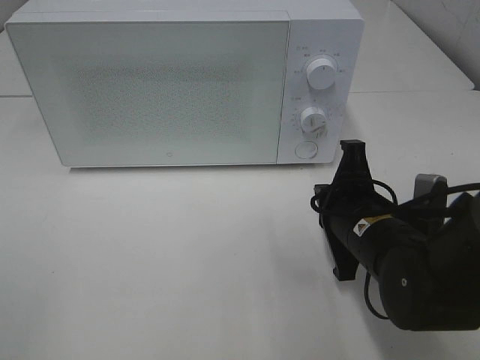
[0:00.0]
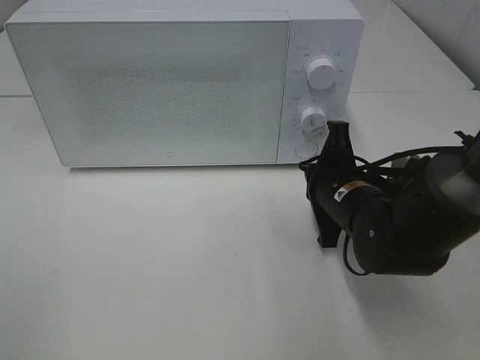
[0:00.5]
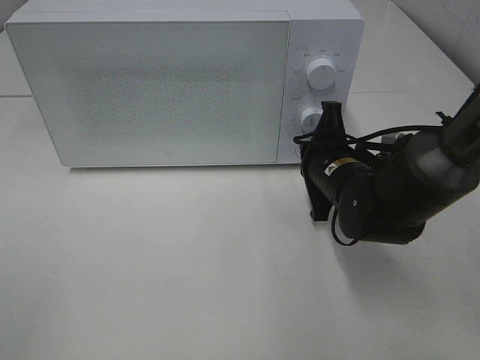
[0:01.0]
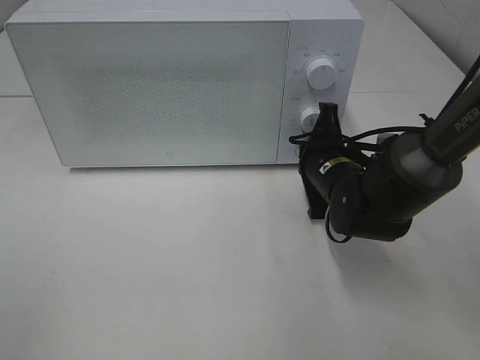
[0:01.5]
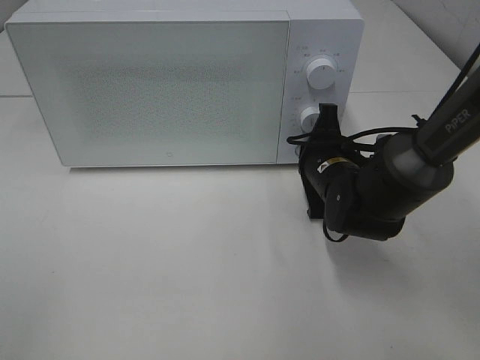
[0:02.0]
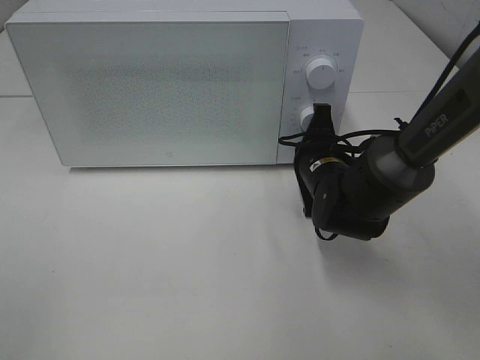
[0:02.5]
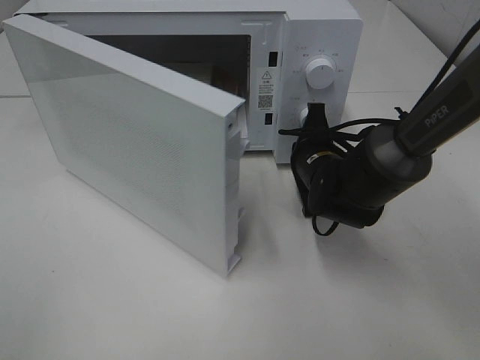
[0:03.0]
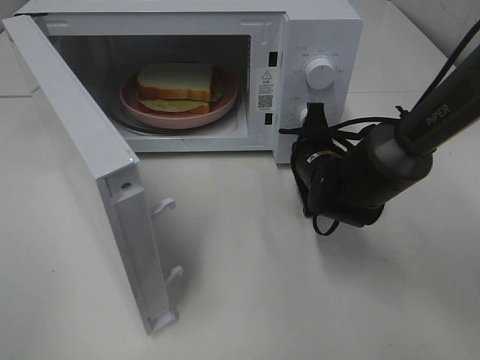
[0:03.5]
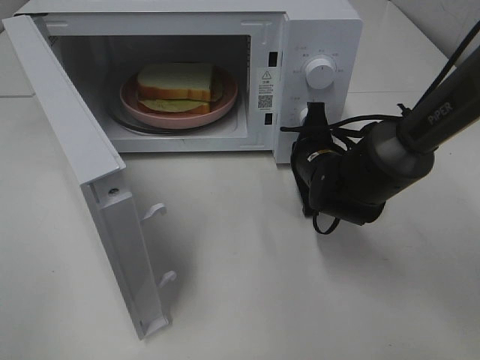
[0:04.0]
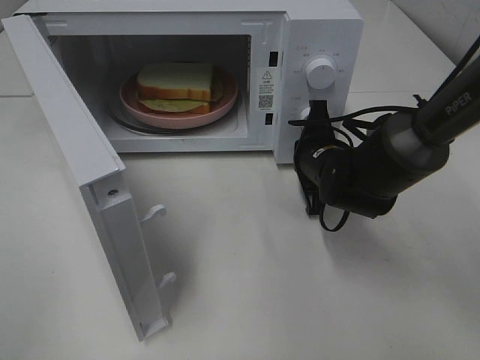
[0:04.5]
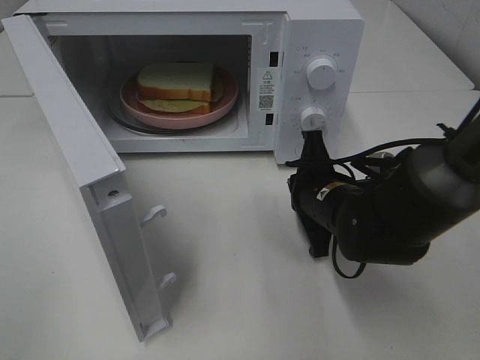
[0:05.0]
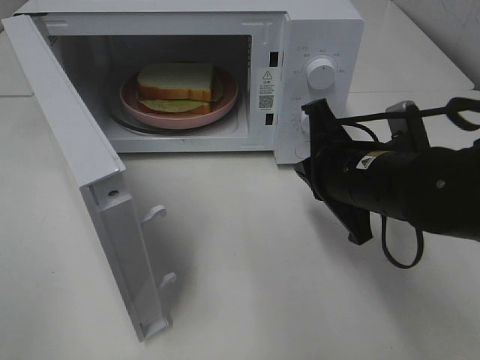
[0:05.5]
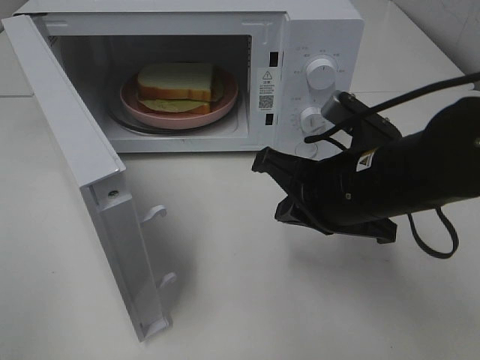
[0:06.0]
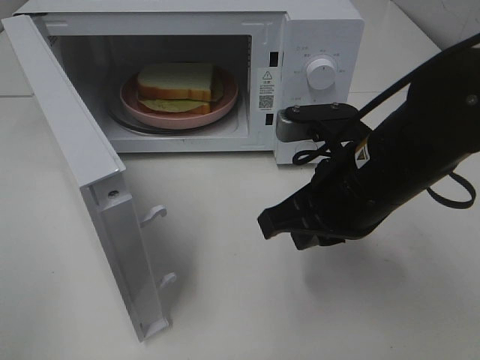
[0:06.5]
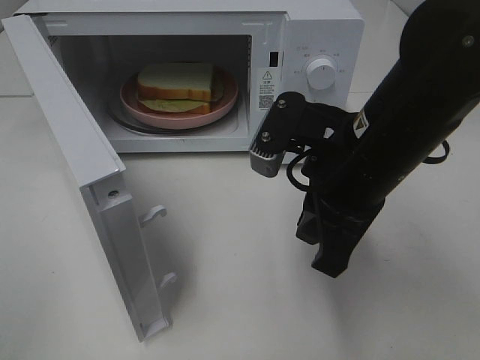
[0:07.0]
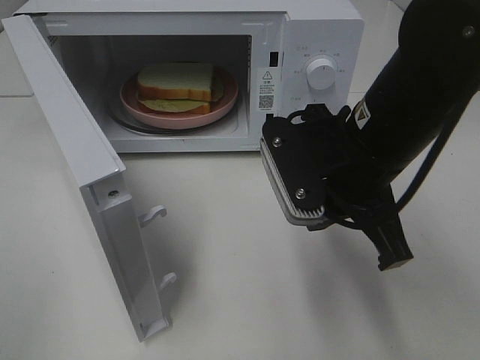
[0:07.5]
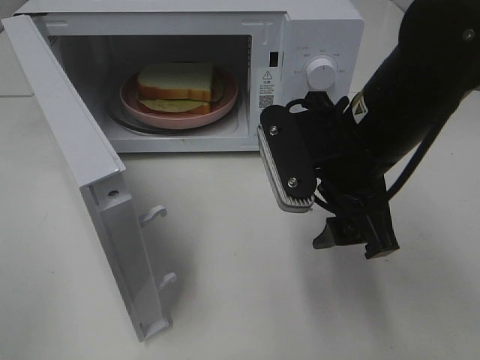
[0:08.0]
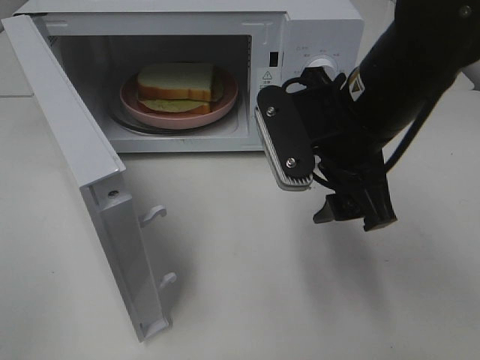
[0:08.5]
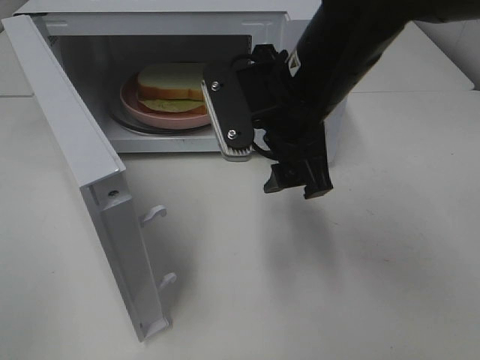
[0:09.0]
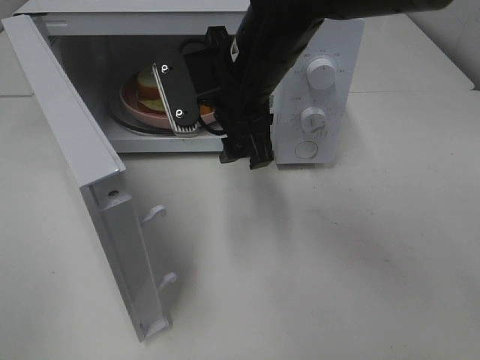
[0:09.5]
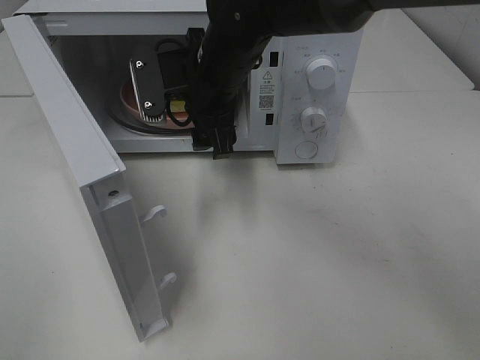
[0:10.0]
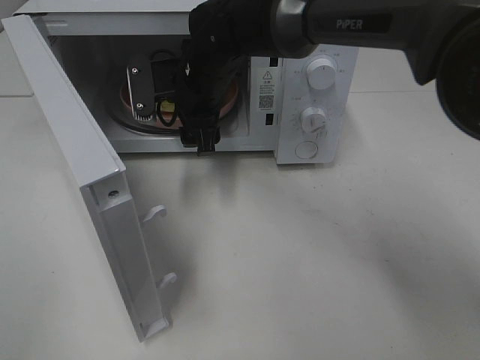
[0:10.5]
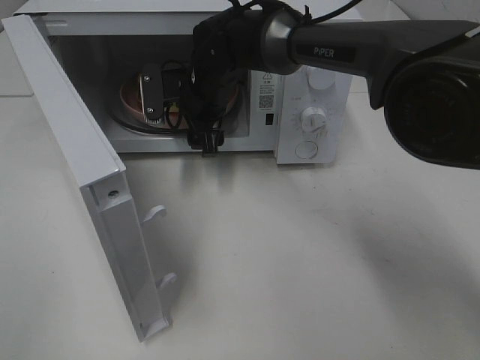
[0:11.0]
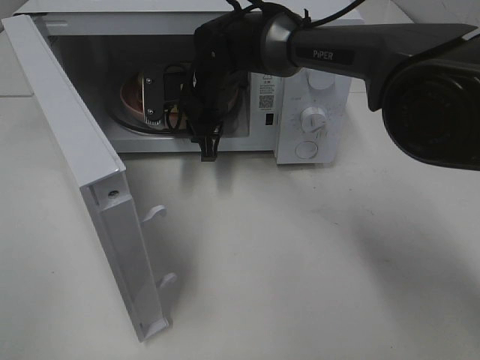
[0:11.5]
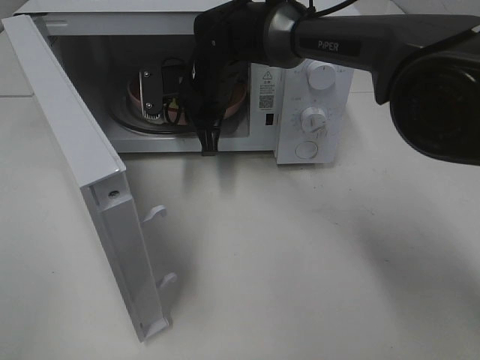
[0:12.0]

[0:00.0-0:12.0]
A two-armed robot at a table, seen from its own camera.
Task of the whole recording: Heat Sandwich.
Step, 0:00.0 to 0:04.5: Right hand: press the switch.
Step, 0:05.0 to 0:11.5: Right hand: grab the plate with the sandwich.
0:00.0 to 0:02.0: The right gripper heads forward, covering about 10 cm.
0:04.0 to 0:06.0: The right gripper goes approximately 15 cm backward and upward.
0:06.0 to 0:08.0: The right gripper opens its fingers.
0:08.0 to 0:10.0: The right gripper moves forward and to the left, some 20 cm.
0:10.0 to 0:12.0: The right gripper shifts about 10 cm forward and downward, and closes.

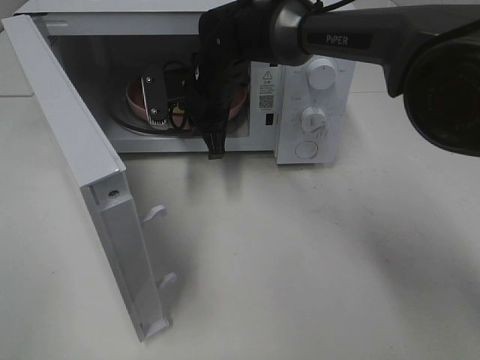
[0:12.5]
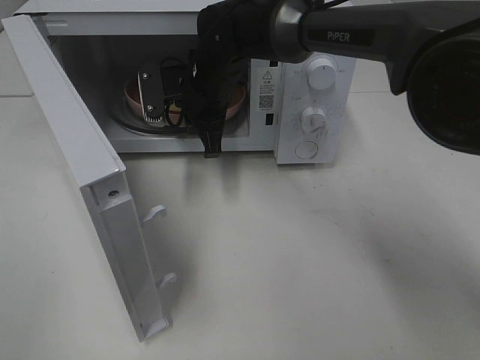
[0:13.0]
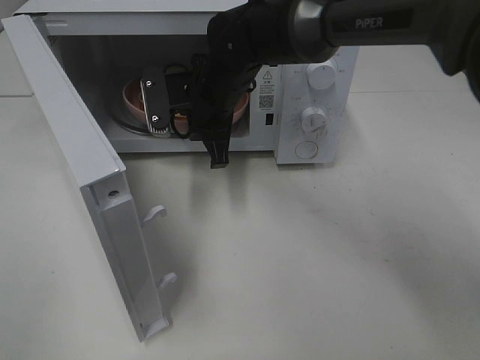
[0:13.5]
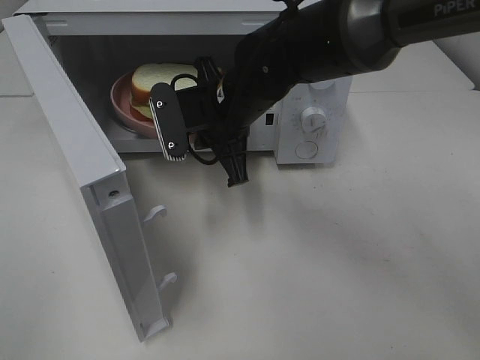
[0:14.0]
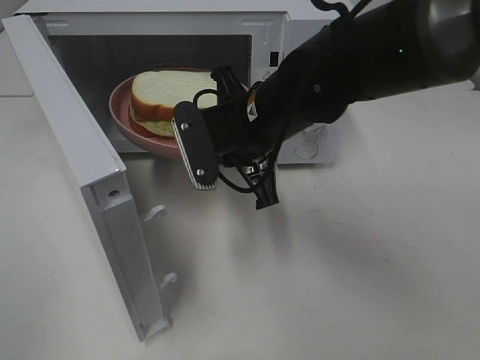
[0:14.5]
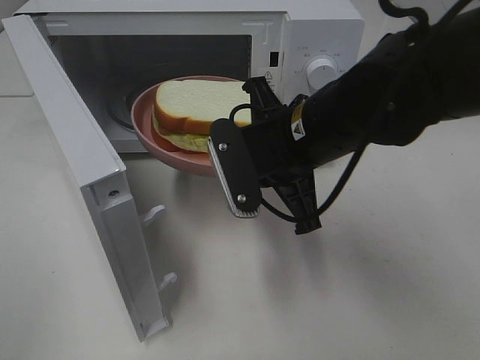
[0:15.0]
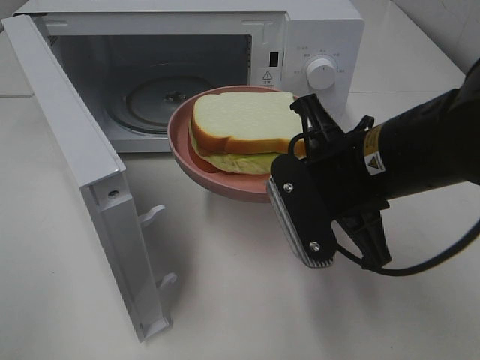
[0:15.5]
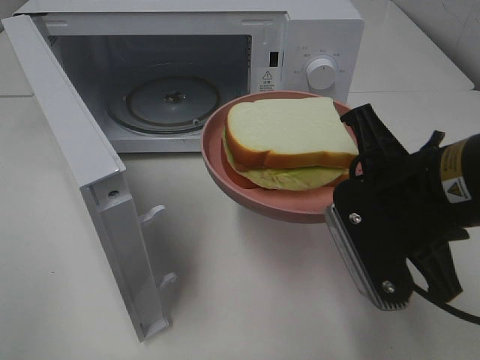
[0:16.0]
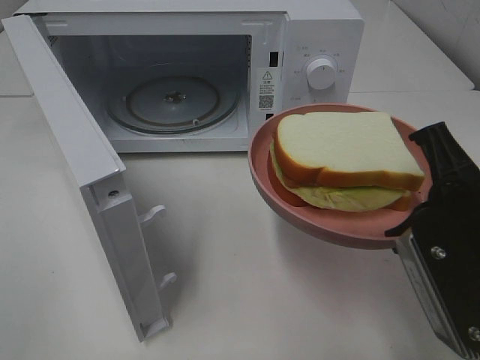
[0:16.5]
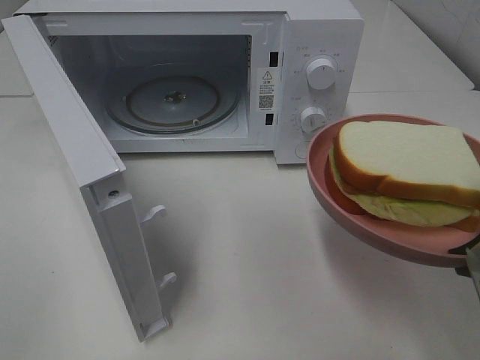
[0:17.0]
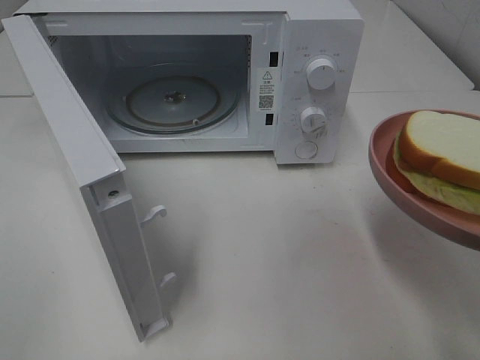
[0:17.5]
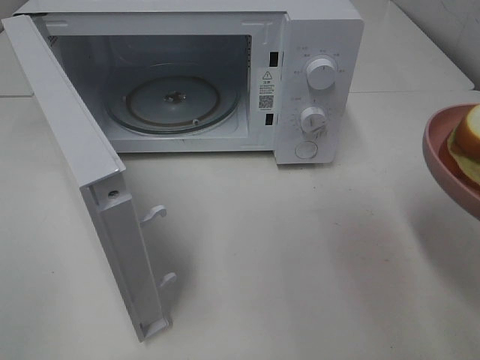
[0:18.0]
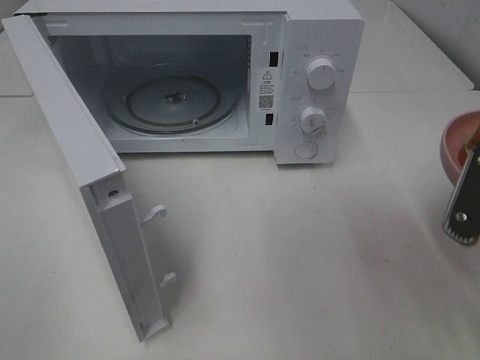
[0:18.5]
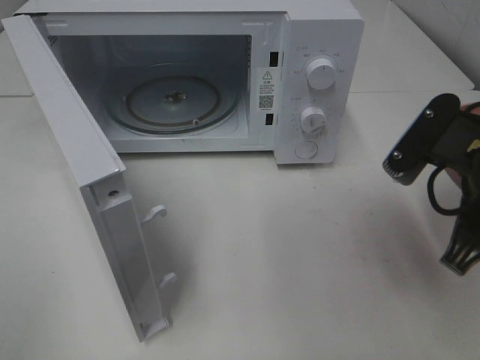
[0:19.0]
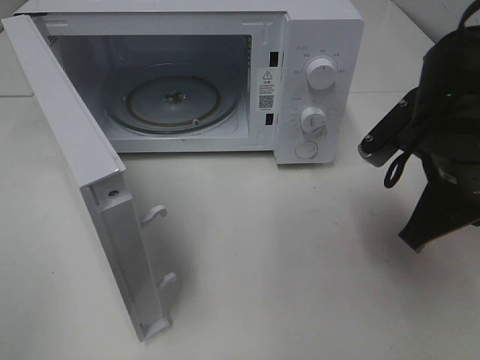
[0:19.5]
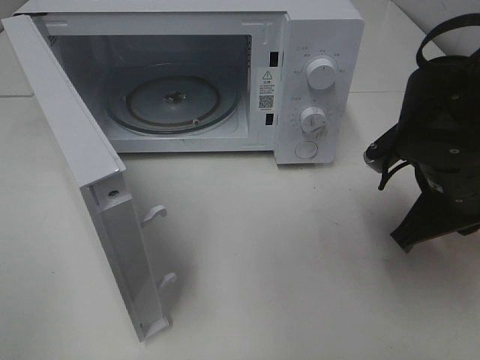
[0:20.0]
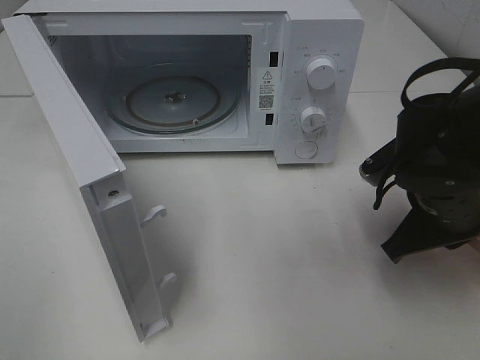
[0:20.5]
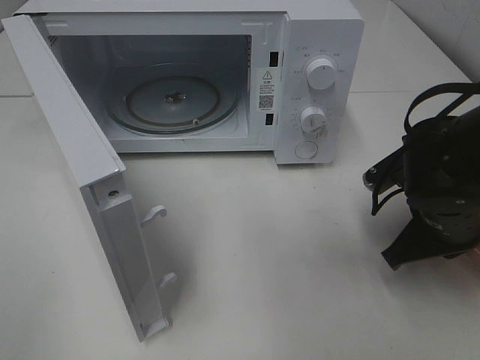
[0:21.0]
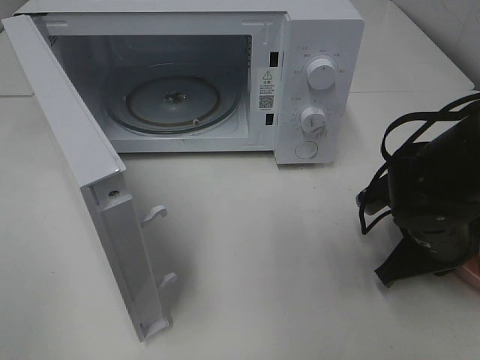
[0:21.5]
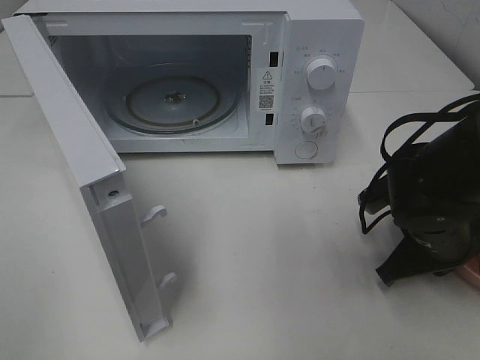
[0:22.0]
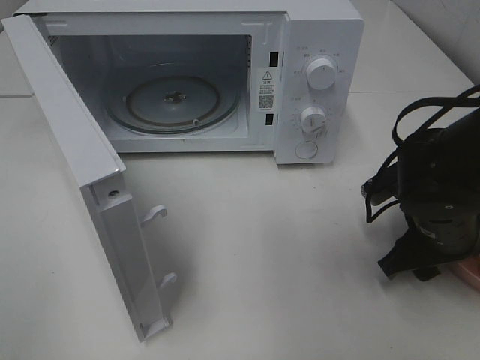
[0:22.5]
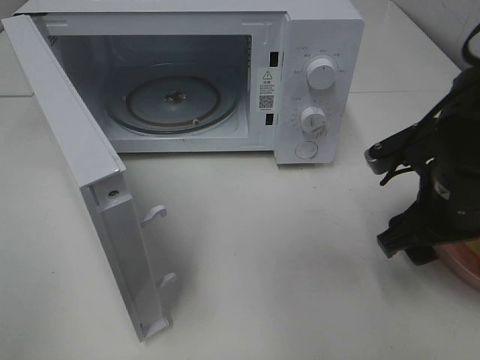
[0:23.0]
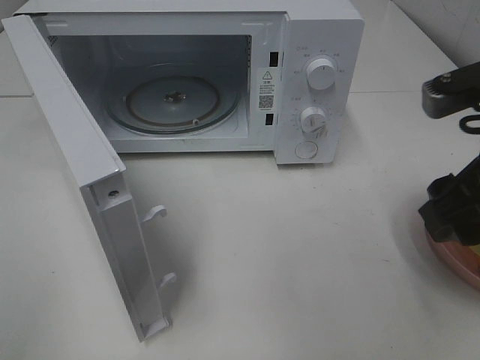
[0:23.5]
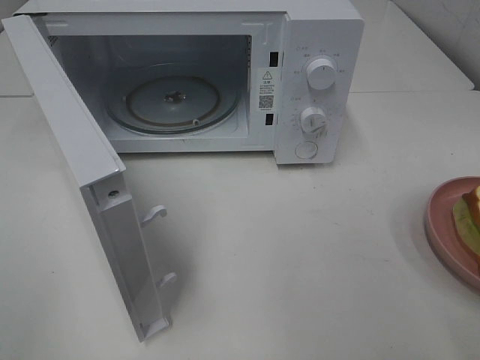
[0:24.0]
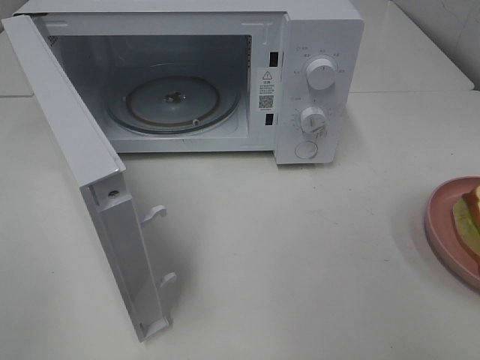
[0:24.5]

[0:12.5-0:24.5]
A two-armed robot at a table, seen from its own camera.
Task of the whole recording: Heat Sandwich.
Step, 0:12.5 to 0:23.0: Right hand: place the plate on the table.
0:12.5 to 0:14.5: The right gripper goes roughly 15 cm backward and to the right.
0:14.5 to 0:16.5: The right gripper shifts about 25 cm backward and to the right.
0:18.5 to 0:20.5: The right gripper is displaced forward and downward by about 10 cm.
0:20.5 to 0:22.5: The right gripper opens up.
0:22.5 to 0:24.5: The right gripper heads backward and upward, covering roughly 30 cm.

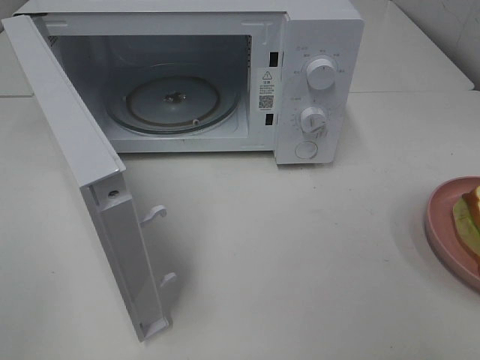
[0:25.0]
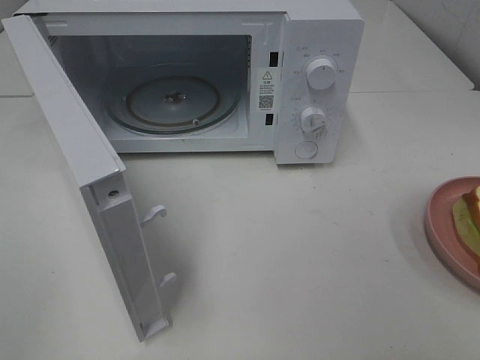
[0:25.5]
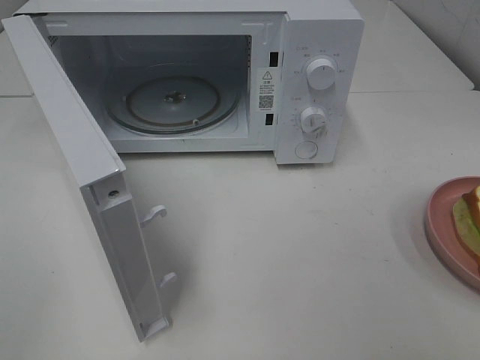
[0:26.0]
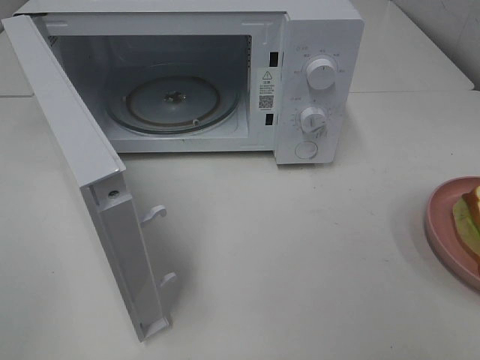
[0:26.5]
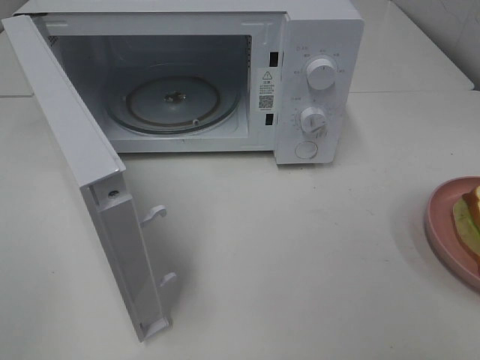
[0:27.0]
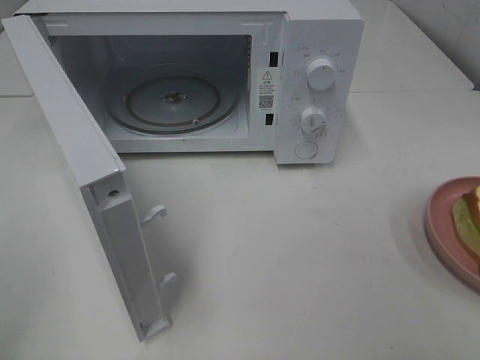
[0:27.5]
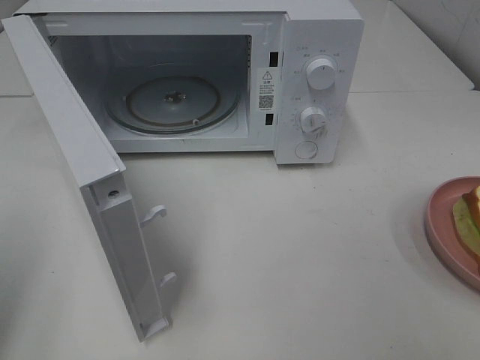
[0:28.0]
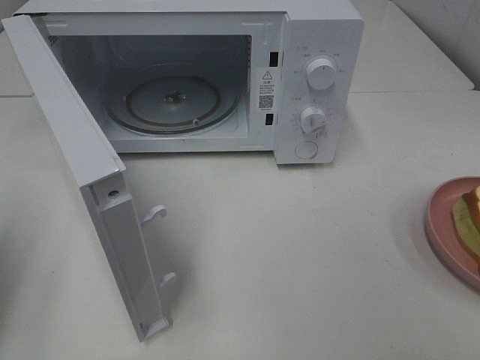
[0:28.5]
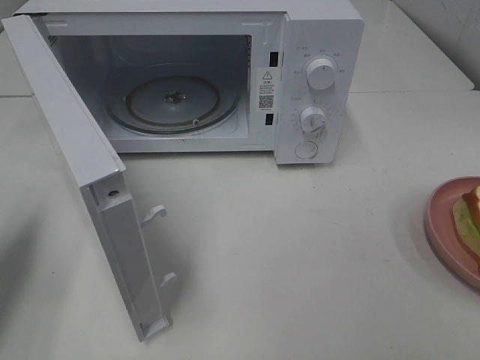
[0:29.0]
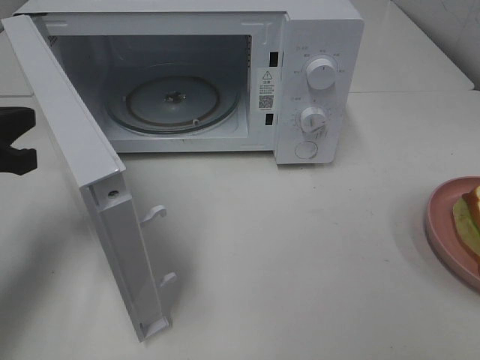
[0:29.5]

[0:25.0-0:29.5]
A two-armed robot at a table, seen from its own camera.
Task of the whole recording: Heat Sandwich.
0:27.0 to 0:29.5: The left gripper heads forward, covering some 25 cm, and closes its fingers.
